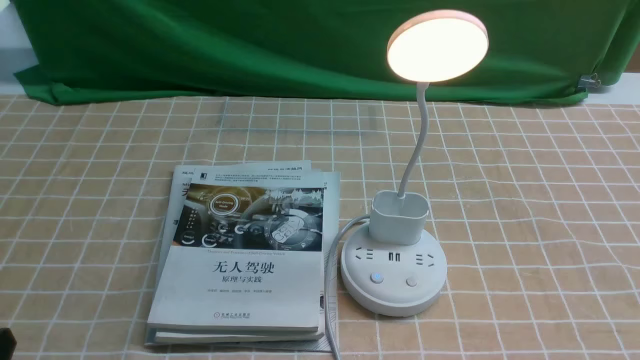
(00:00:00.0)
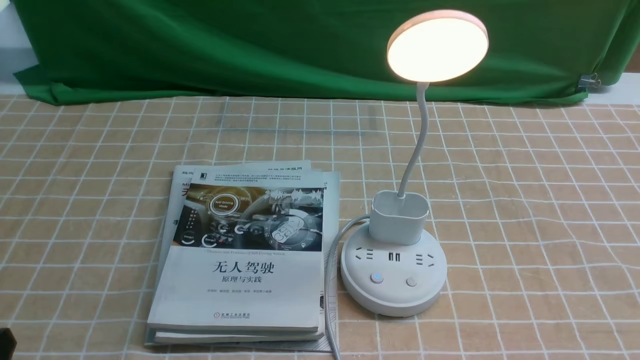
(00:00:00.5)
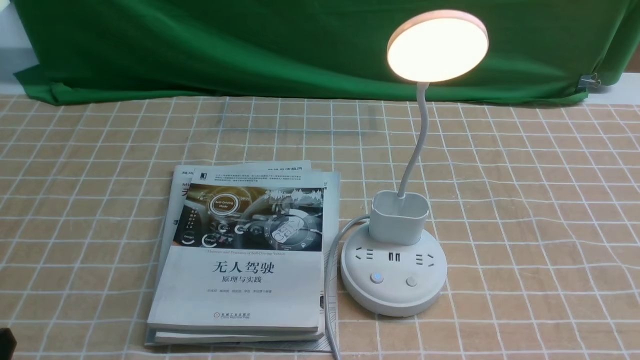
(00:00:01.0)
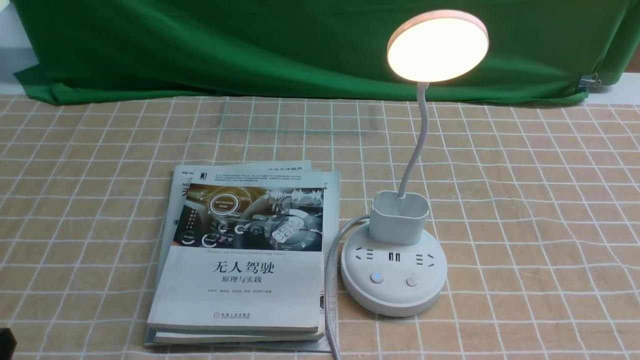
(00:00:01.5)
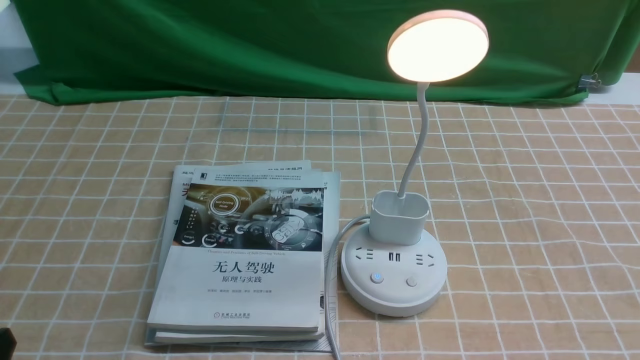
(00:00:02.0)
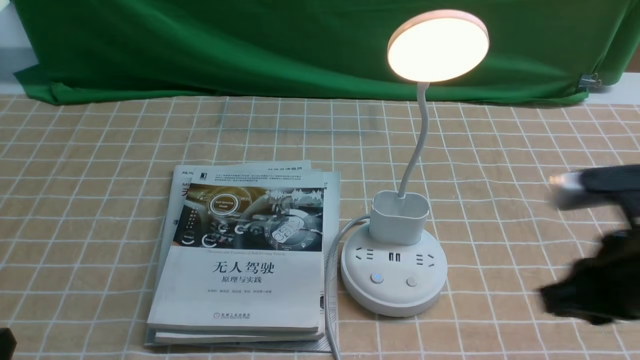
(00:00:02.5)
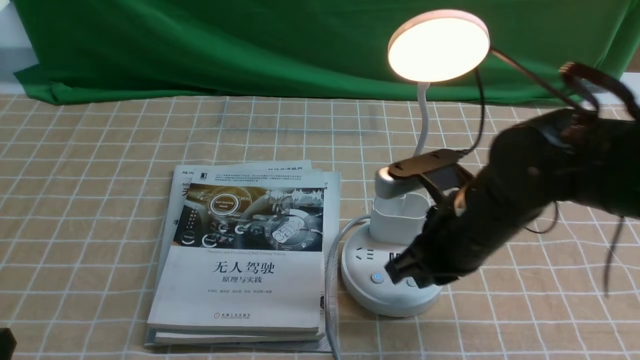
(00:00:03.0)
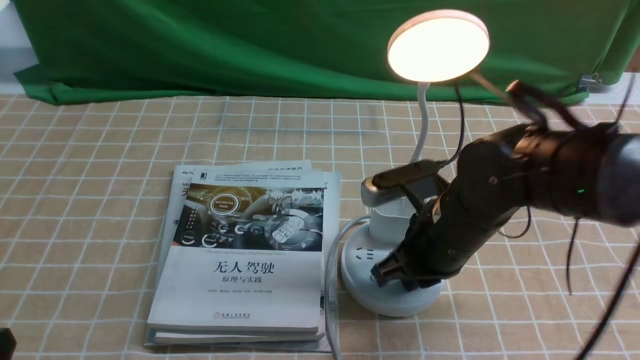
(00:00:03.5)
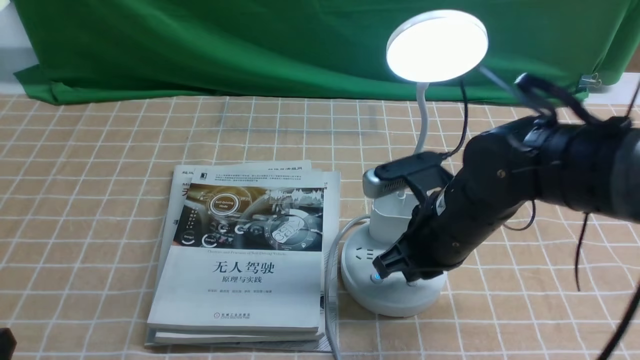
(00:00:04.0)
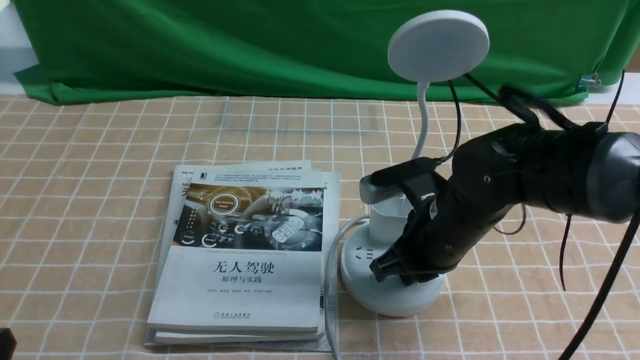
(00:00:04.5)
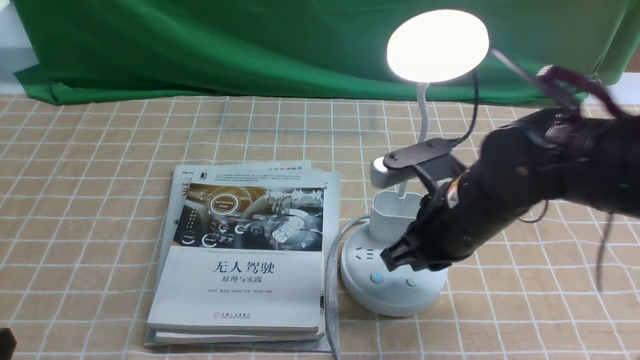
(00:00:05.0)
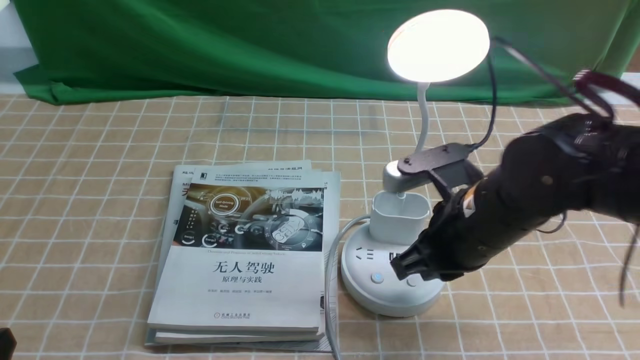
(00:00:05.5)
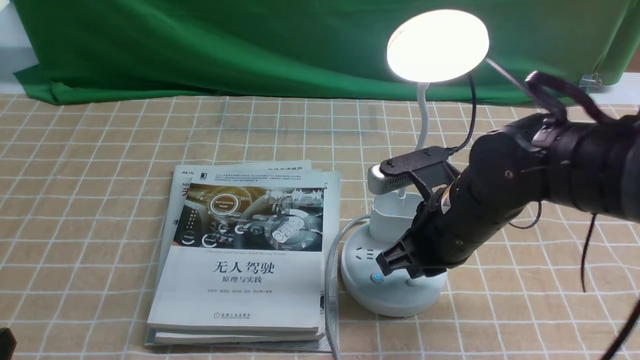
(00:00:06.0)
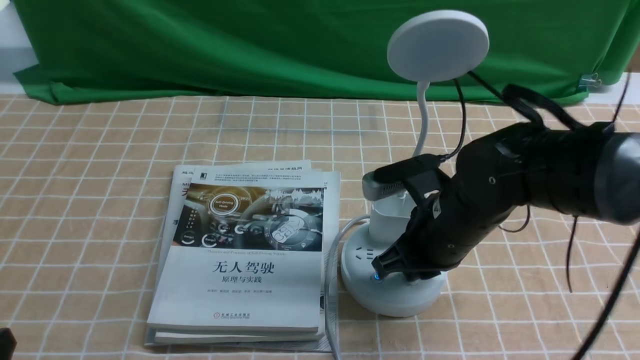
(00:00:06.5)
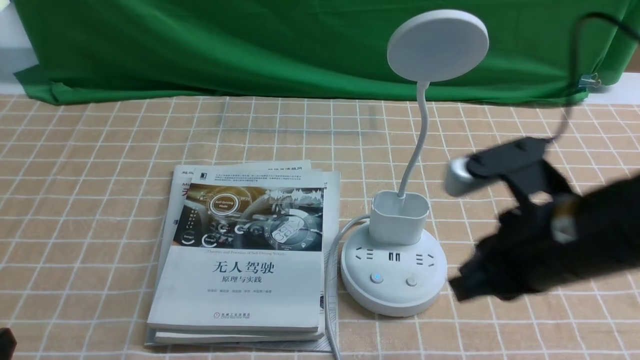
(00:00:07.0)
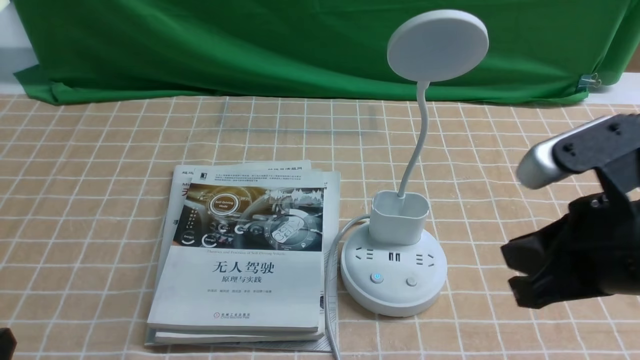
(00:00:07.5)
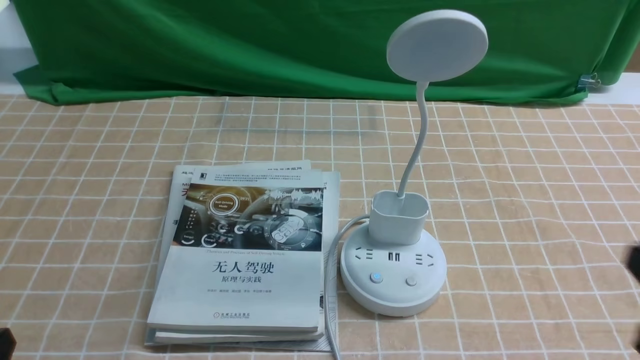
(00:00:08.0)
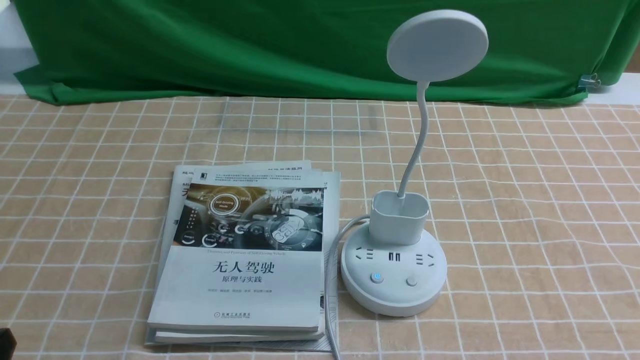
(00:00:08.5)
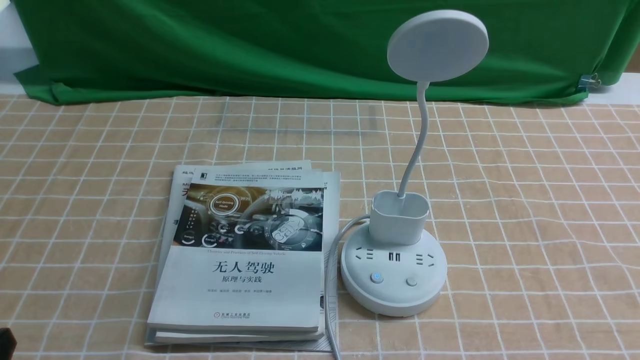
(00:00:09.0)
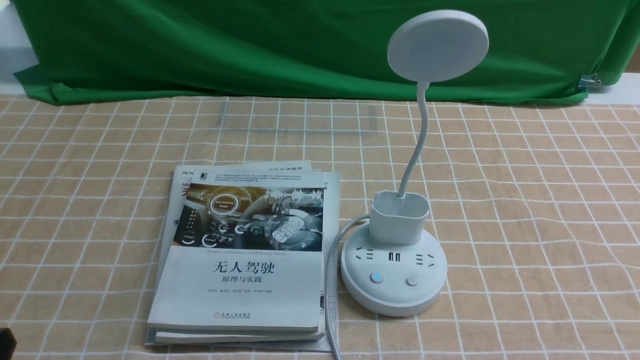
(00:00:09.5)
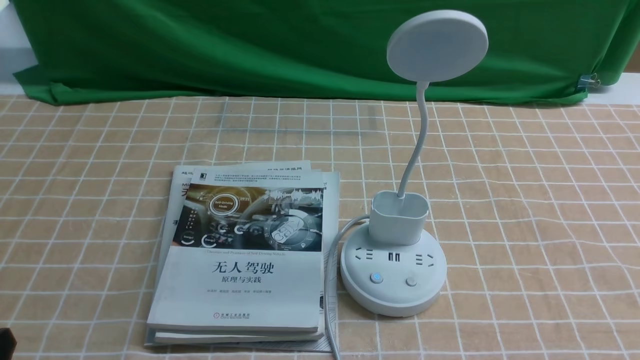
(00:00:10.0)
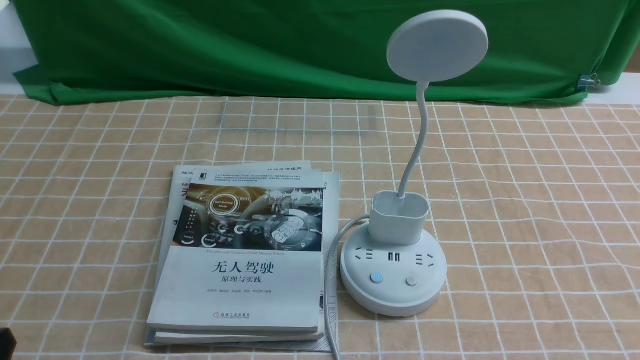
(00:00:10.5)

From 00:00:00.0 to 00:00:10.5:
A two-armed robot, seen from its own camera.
Task of the whole recording: turn off the desk lamp on the light coffee tablecloth by hand.
Step, from 00:00:00.0 to 00:00:05.5: use the right arm to press the button switch on the lamp holder.
From 00:00:02.0 to 00:00:04.0: The right gripper travels forward and to the left by roughly 30 cm.
From 00:00:04.0 to 00:00:06.5: There are only small adjustments of the grippers.
From 00:00:06.5 to 00:00:08.5: The right gripper heads backward and to the right, covering roughly 30 cm.
